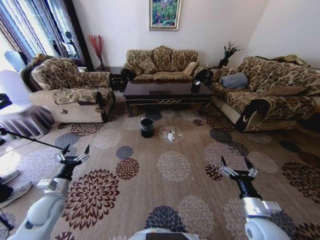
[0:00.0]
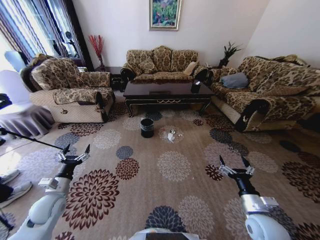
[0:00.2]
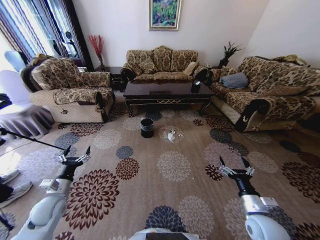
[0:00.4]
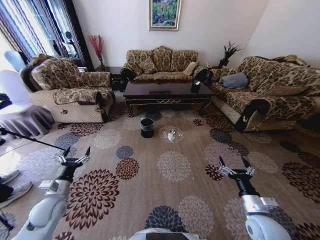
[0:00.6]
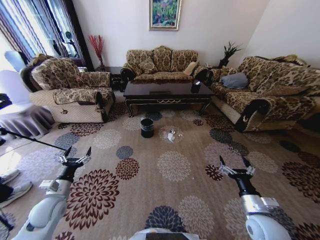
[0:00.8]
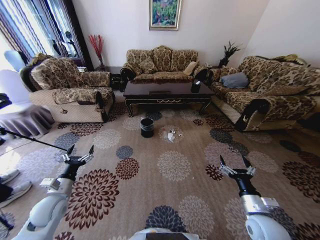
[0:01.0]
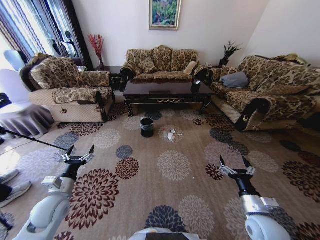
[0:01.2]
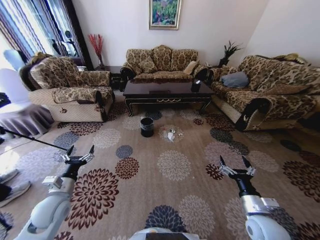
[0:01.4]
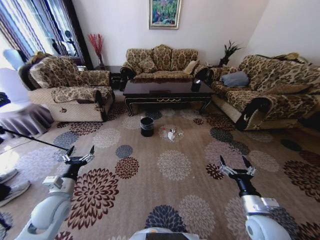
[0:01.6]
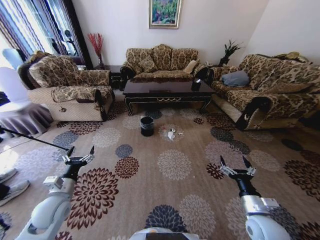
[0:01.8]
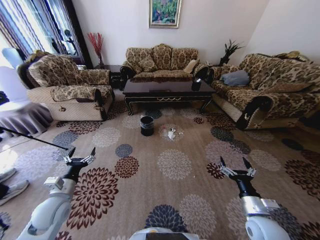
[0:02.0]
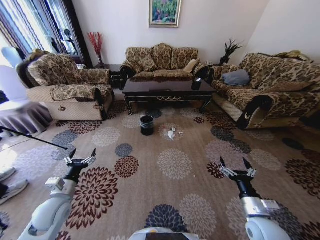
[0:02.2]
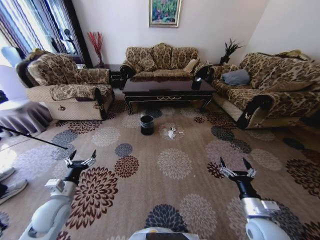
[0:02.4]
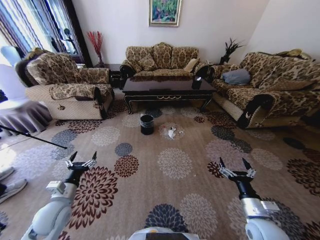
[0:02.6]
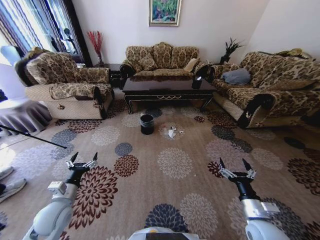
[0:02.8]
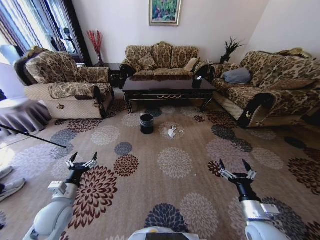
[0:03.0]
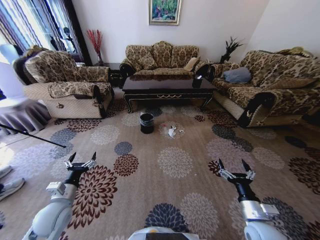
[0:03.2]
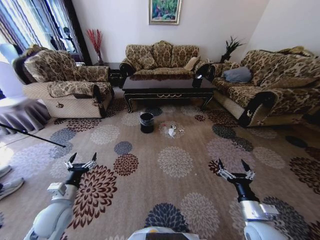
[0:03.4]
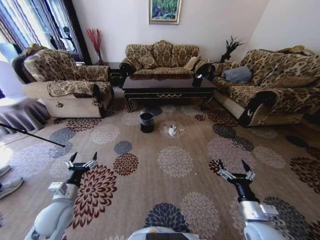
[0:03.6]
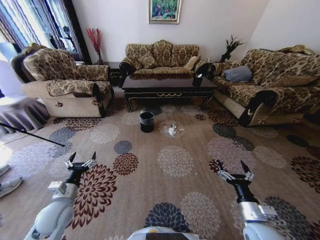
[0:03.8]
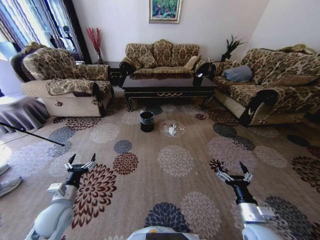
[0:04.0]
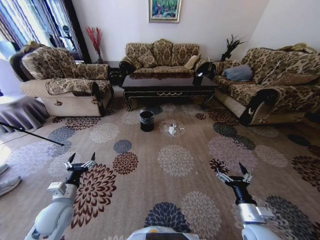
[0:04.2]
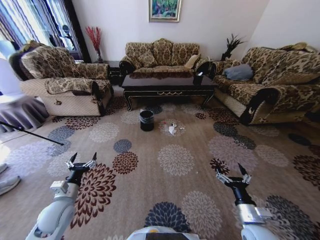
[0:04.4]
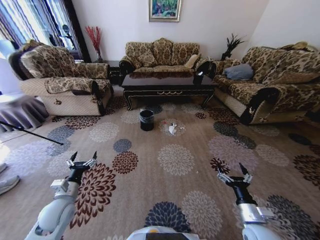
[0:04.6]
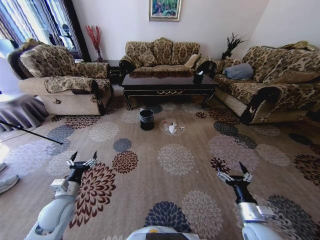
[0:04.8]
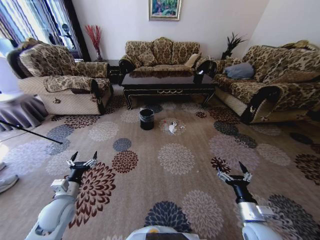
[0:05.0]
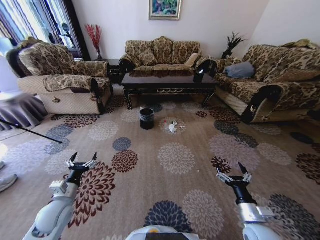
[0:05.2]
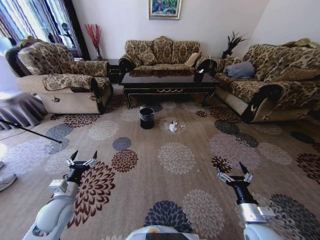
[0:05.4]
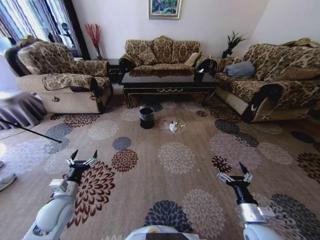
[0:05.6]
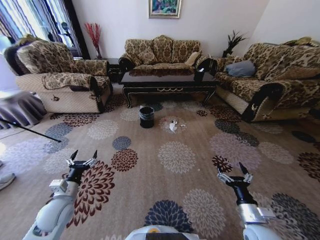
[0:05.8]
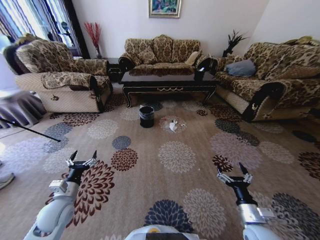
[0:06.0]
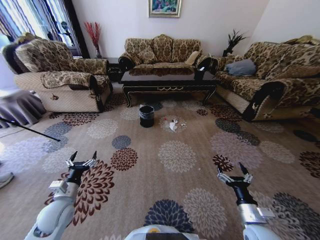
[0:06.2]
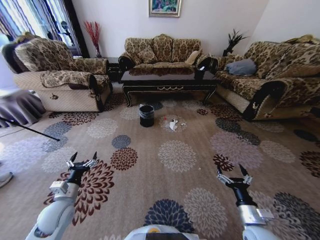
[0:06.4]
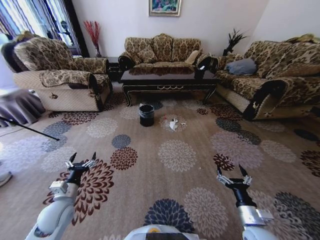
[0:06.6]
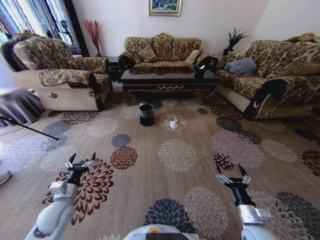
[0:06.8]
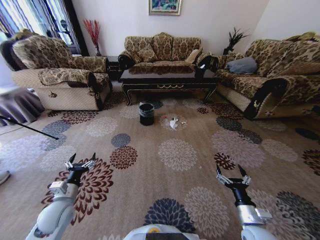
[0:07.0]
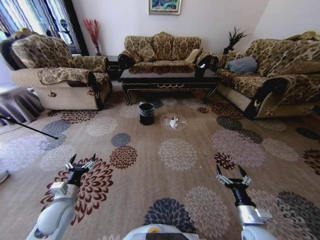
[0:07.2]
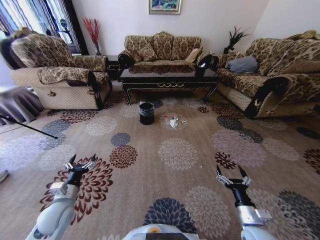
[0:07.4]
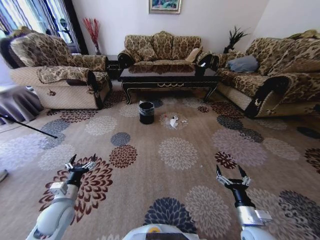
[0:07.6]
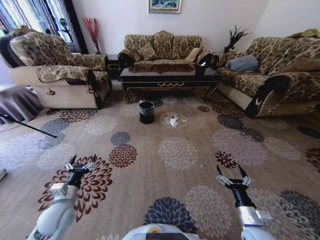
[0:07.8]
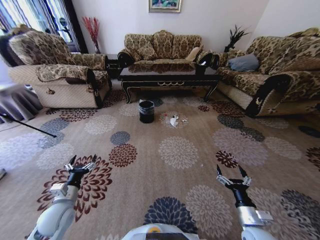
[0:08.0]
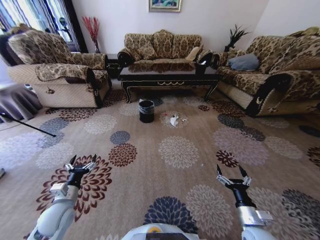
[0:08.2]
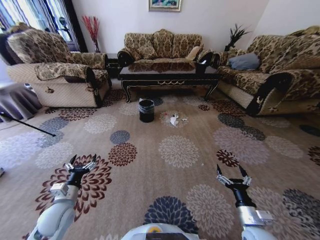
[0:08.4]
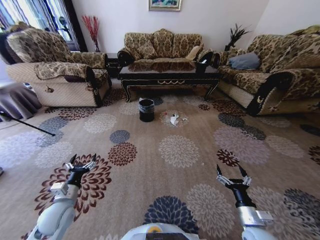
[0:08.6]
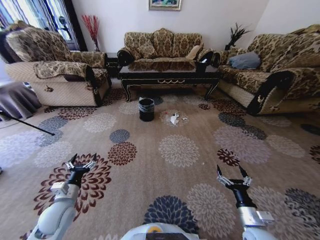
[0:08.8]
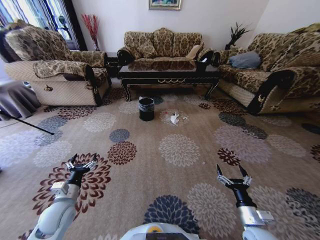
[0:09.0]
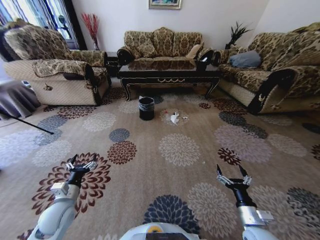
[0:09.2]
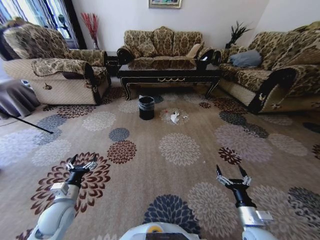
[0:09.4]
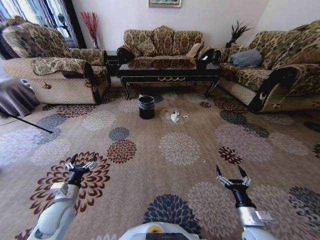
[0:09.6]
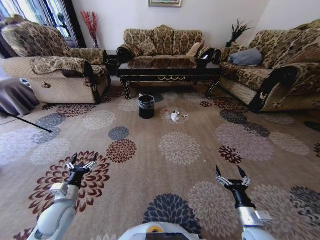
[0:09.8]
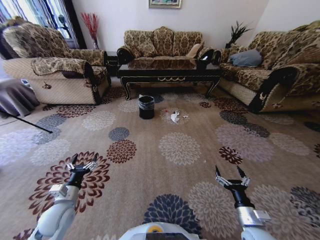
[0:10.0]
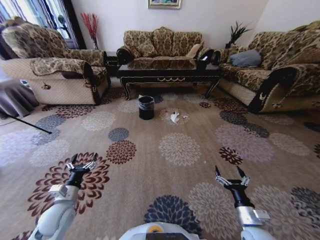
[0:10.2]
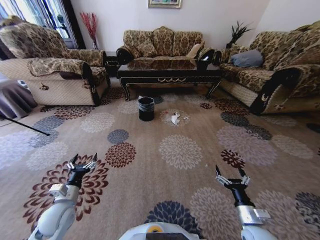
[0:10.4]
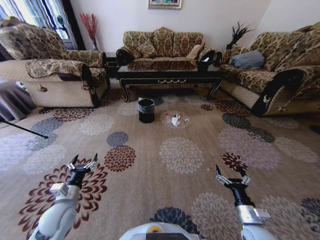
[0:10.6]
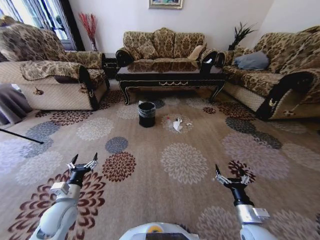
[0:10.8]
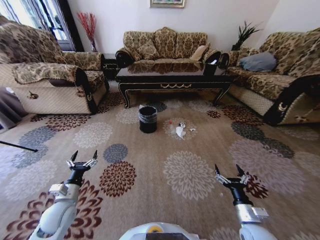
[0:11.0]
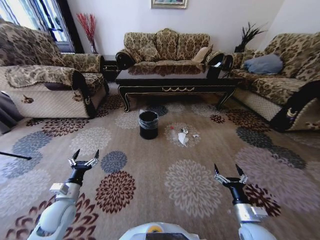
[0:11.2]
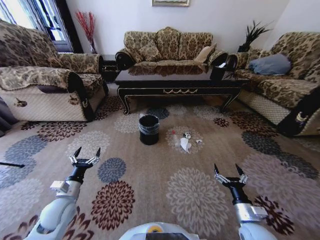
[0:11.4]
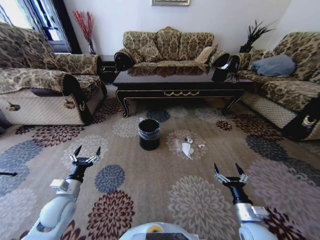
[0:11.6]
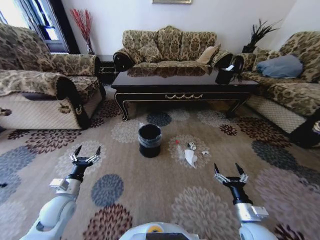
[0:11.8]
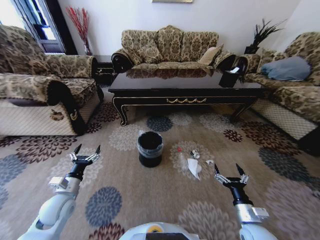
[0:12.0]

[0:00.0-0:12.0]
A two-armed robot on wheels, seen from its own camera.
Task of the whole recording: Move to the front of the table and pick up the trash from the floor, then place it into the trash bin.
0:09.0 to 0:10.4: The two grippers keep their place.

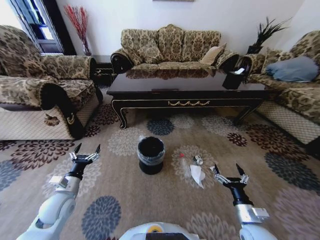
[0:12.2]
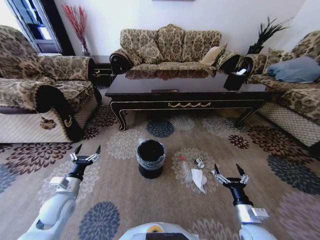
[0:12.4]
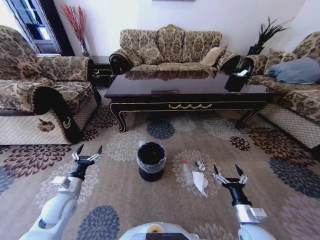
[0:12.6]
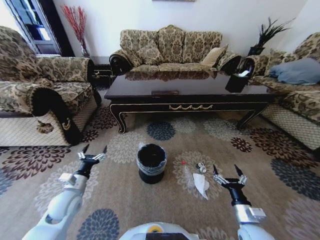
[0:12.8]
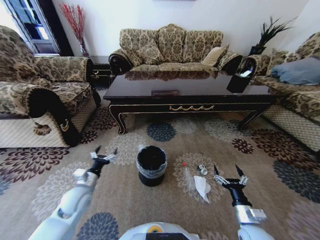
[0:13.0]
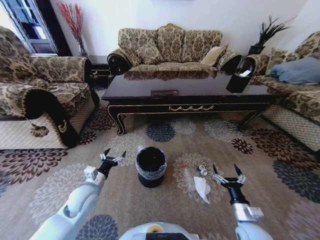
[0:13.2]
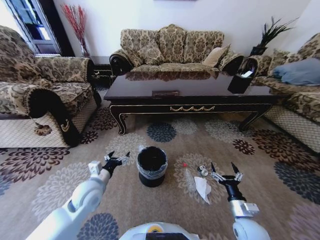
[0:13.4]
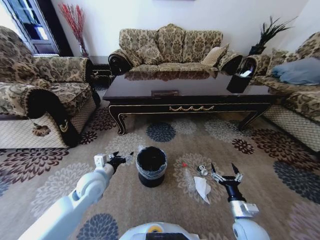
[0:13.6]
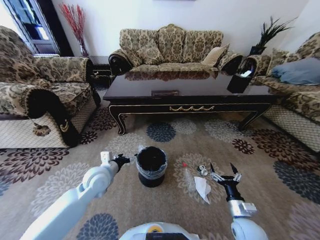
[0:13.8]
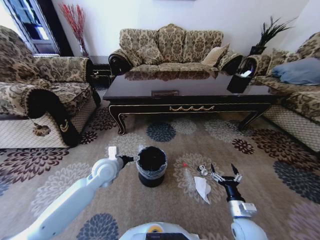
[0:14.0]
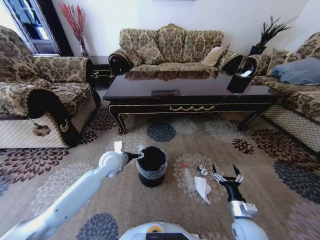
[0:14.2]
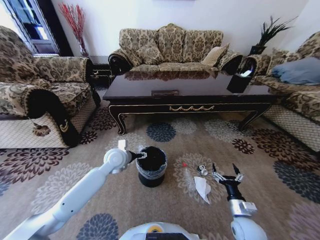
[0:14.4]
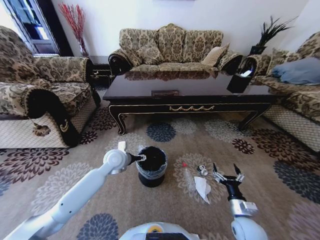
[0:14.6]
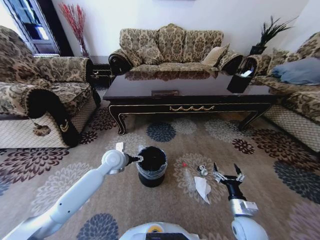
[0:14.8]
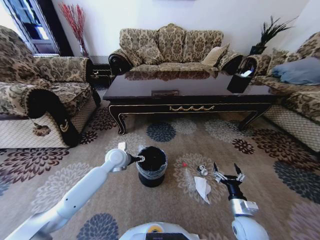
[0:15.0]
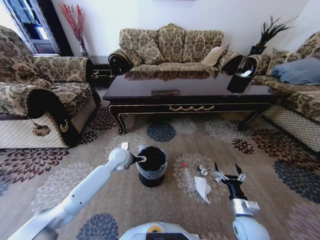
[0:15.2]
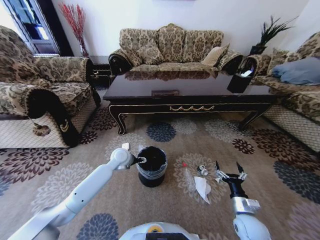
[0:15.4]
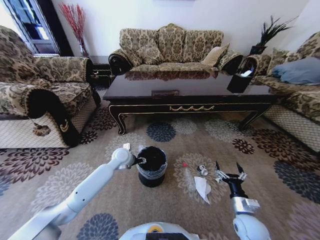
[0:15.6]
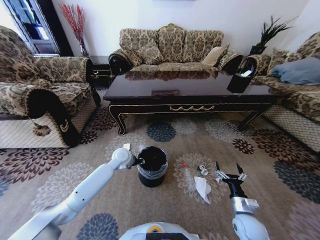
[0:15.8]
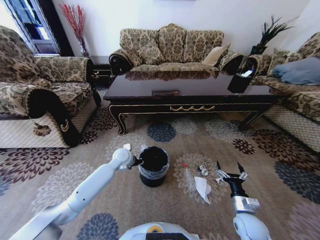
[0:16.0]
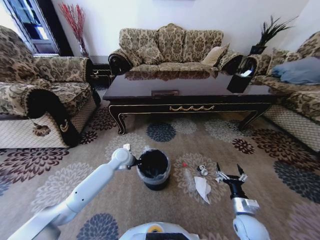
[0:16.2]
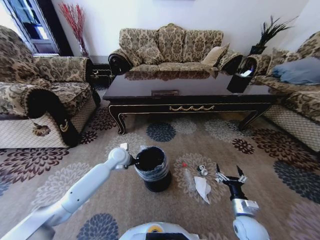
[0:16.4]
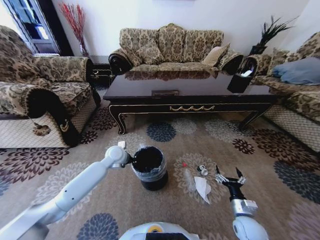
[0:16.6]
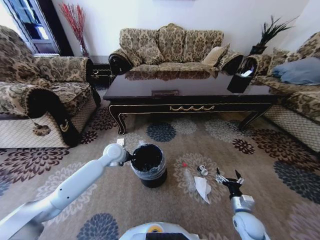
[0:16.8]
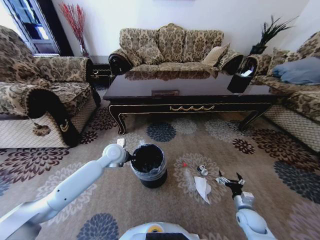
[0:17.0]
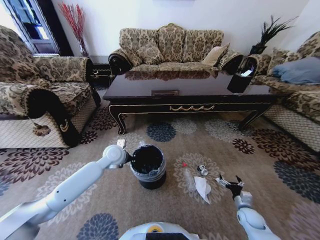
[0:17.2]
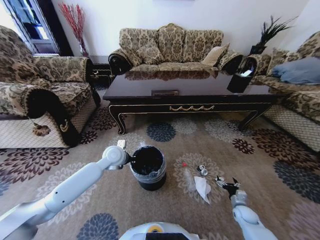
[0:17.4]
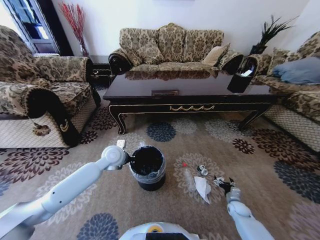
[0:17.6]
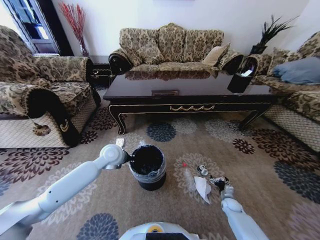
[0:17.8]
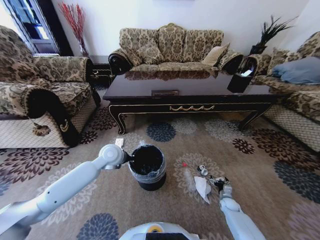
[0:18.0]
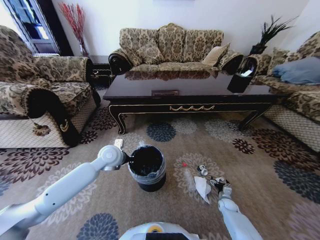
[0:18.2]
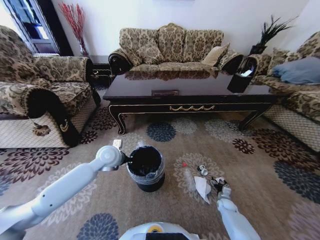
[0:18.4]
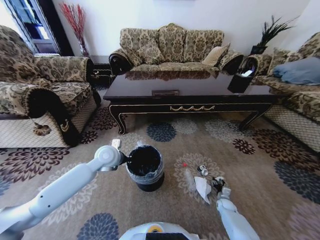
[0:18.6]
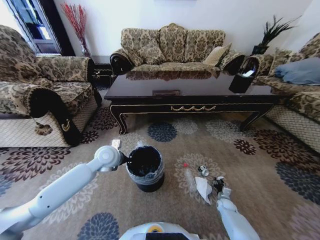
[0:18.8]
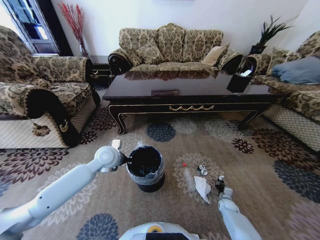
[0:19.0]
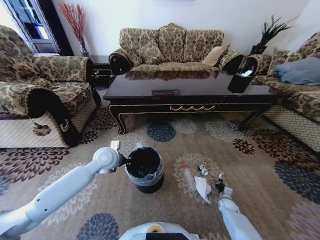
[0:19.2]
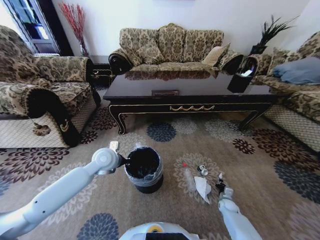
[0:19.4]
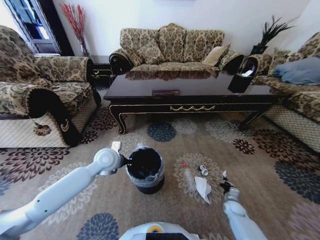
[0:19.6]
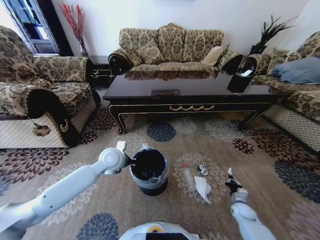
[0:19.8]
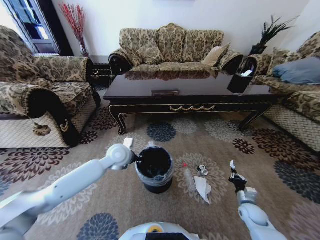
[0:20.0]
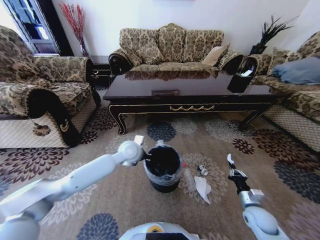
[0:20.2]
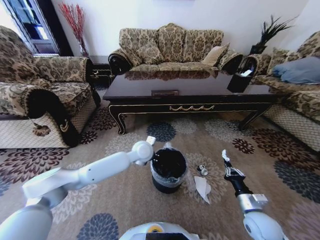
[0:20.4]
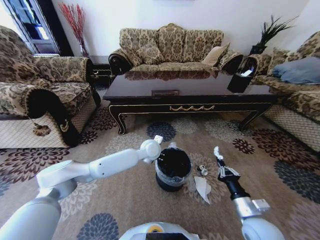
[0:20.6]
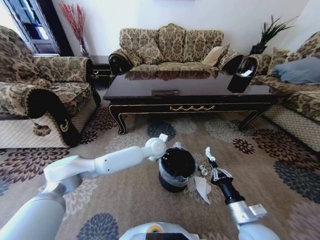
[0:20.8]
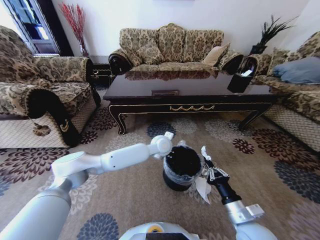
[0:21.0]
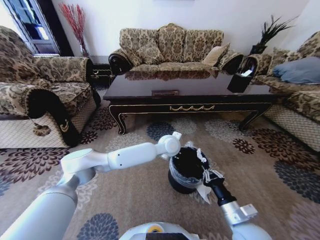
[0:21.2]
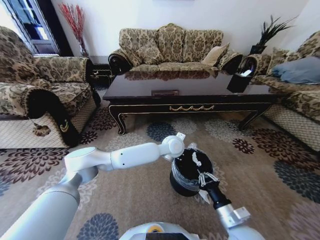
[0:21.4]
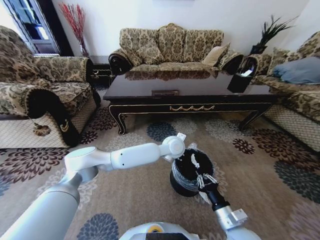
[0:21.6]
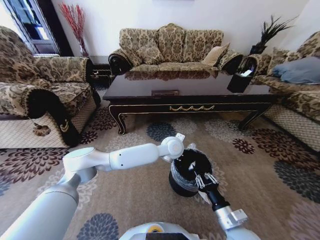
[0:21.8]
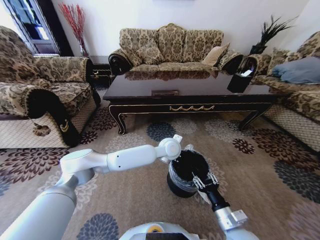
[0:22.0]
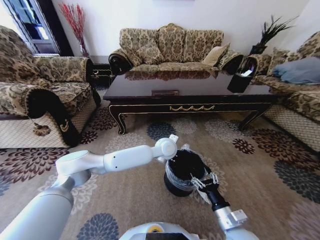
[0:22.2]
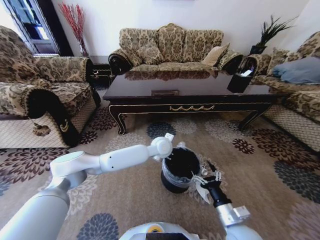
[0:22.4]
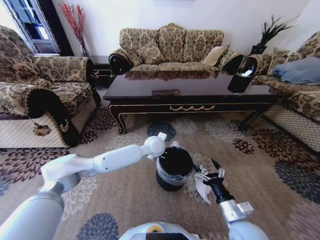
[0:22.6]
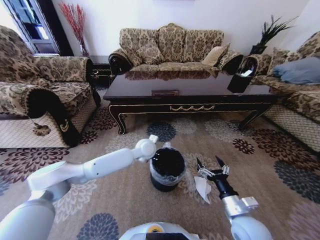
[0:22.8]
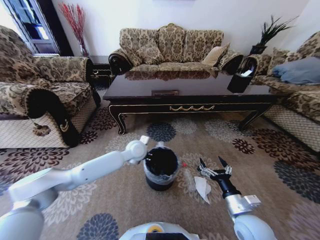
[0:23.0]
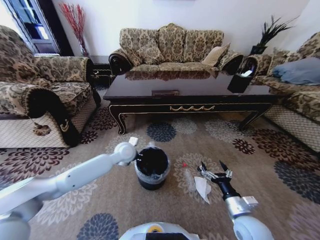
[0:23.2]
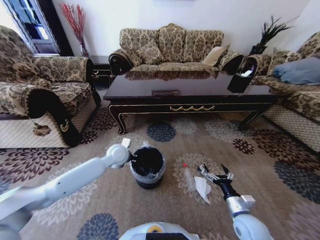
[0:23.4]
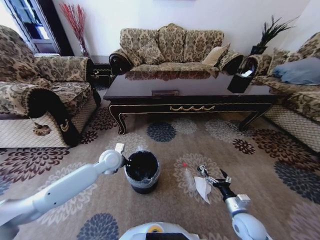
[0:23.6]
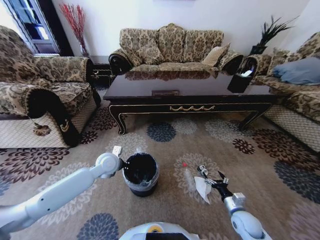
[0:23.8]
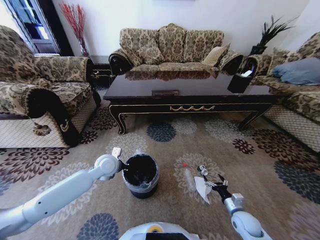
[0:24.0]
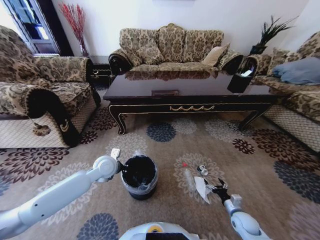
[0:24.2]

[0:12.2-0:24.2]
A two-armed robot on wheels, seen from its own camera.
Task of the whole recording: Move to the front of the table and pick up the trash from the floor, then place it into the trash bin.
0:12.2 to 0:13.8: The left gripper heads to the right, forward and upward, covering some 15 cm.
0:13.8 to 0:15.2: The left gripper heads forward and to the right, covering roughly 15 cm.
0:15.2 to 0:16.6: The left gripper closes its fingers.
0:16.6 to 0:18.2: The left gripper moves approximately 5 cm; the right gripper heads downward, forward and to the right, covering roughly 25 cm.
0:18.2 to 0:19.8: The right gripper travels upward by approximately 5 cm, and closes its fingers.
0:19.8 to 0:21.2: The left gripper shifts some 25 cm to the right. The right gripper heads upward, to the left and backward, covering approximately 30 cm.
0:21.2 to 0:22.6: The left gripper goes roughly 5 cm to the left. The right gripper opens.
0:22.6 to 0:24.2: The right gripper heads downward and to the right, covering roughly 20 cm. Meanwhile the left gripper shifts some 20 cm to the left.
